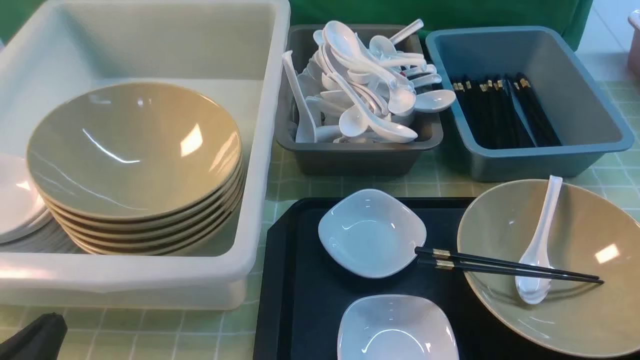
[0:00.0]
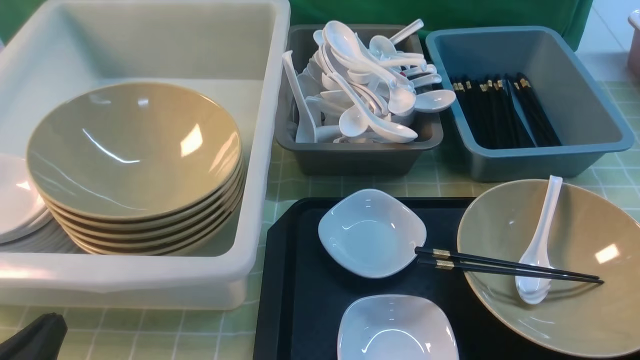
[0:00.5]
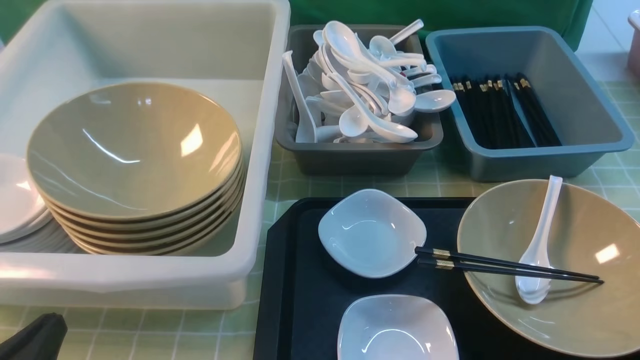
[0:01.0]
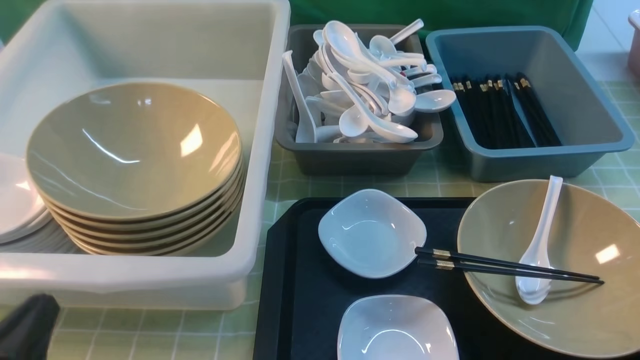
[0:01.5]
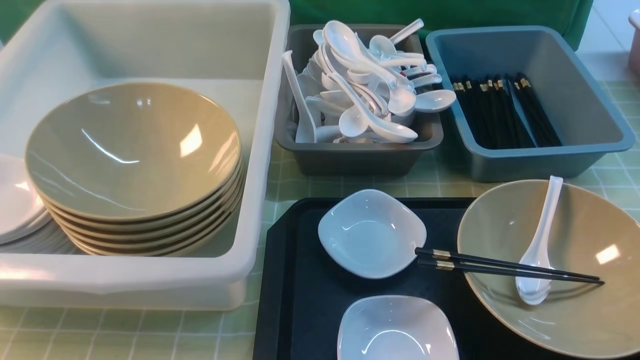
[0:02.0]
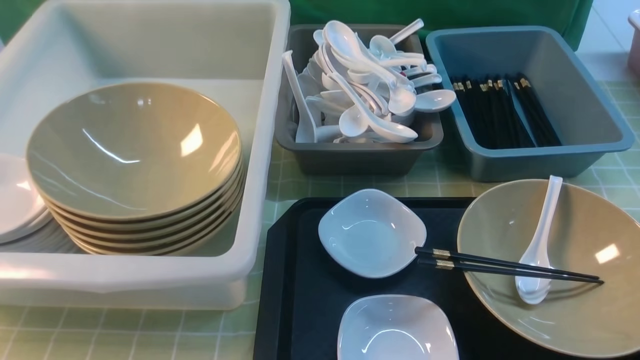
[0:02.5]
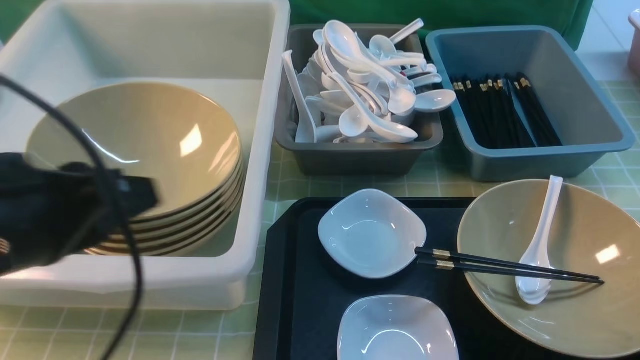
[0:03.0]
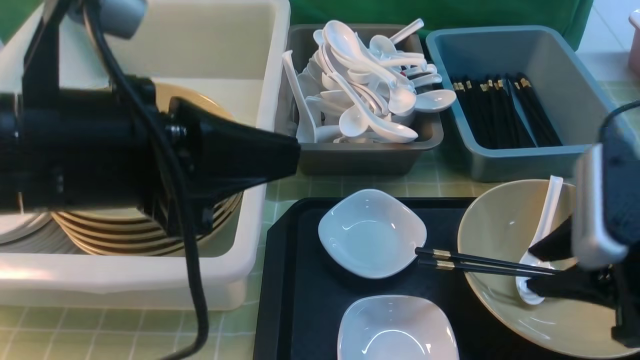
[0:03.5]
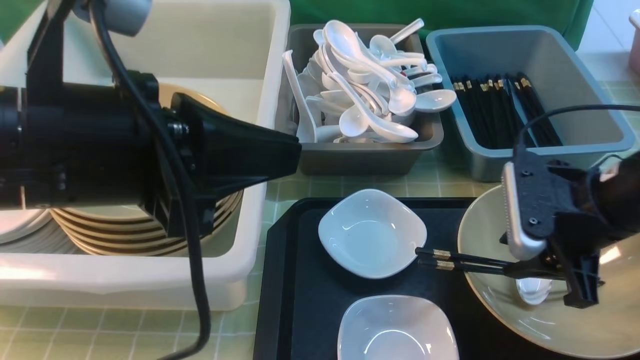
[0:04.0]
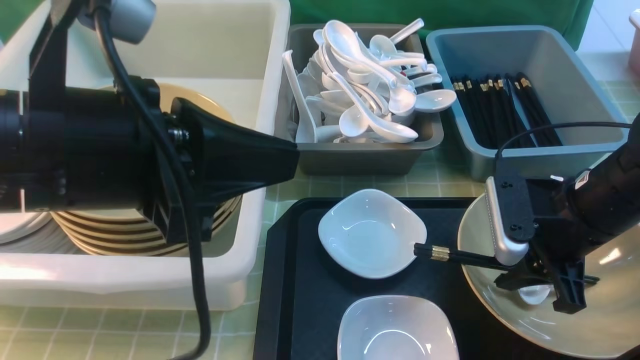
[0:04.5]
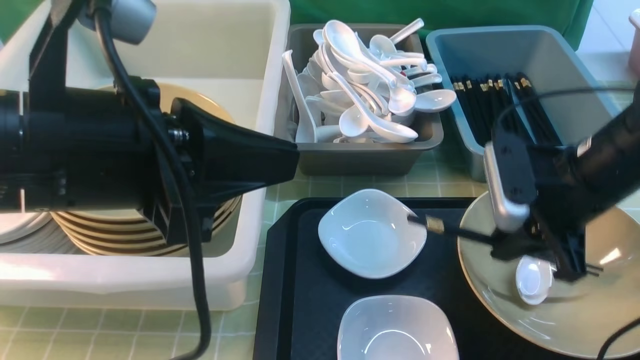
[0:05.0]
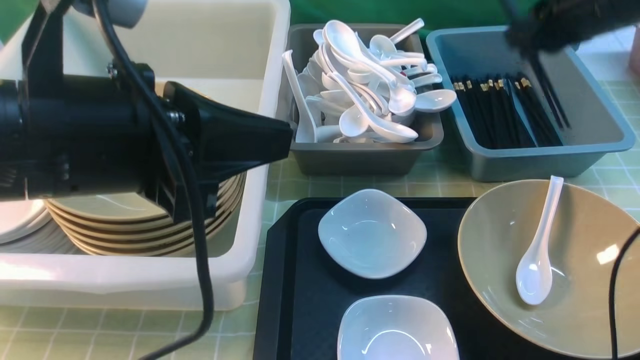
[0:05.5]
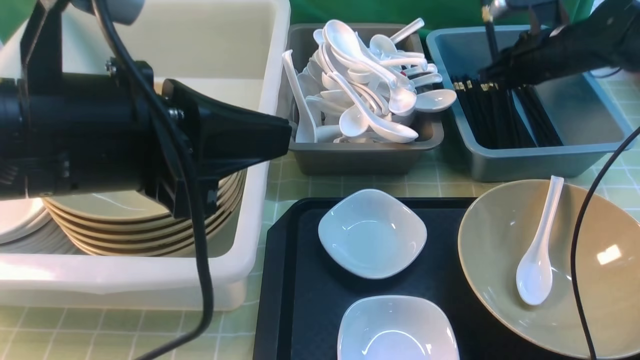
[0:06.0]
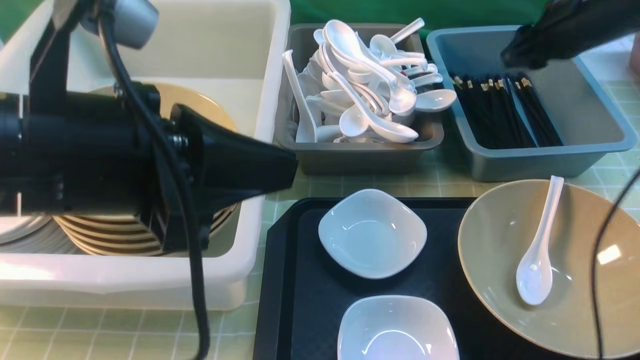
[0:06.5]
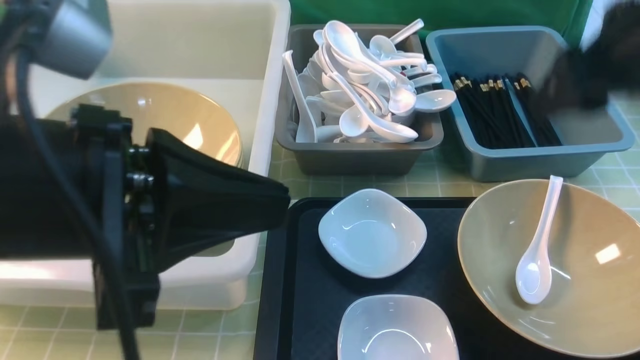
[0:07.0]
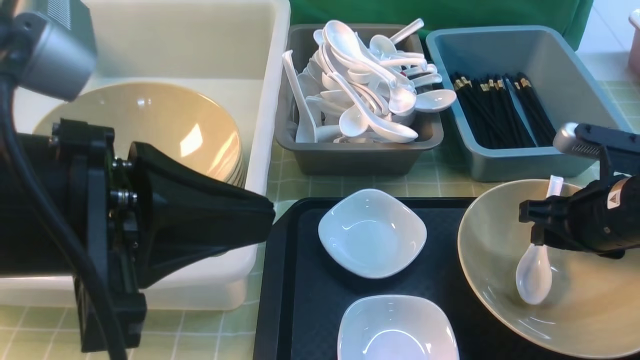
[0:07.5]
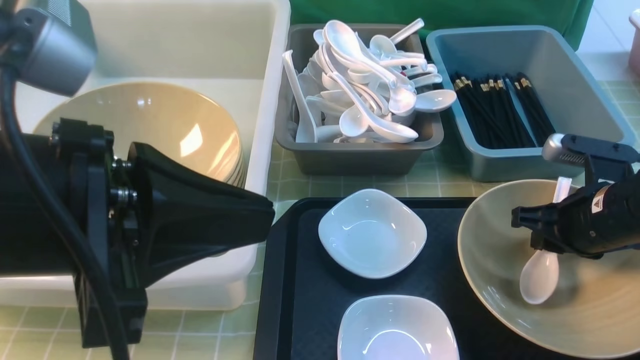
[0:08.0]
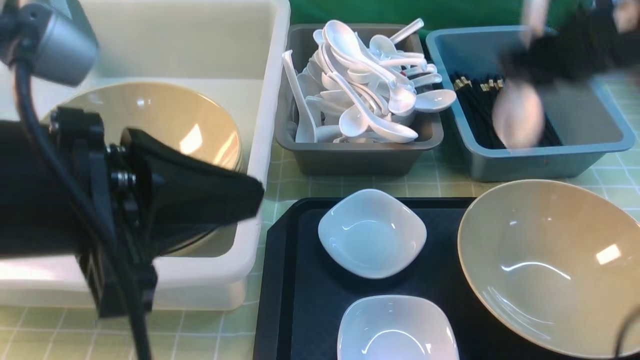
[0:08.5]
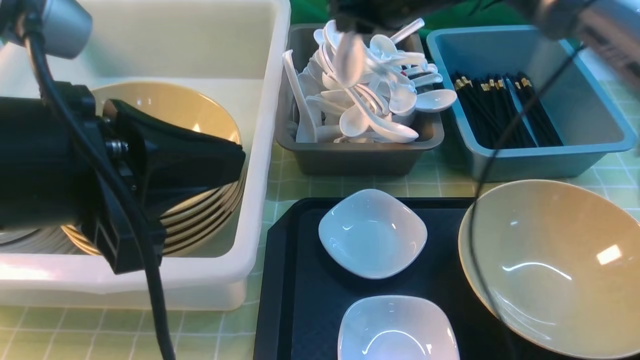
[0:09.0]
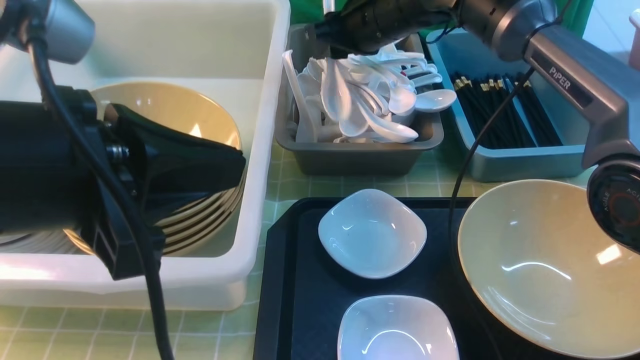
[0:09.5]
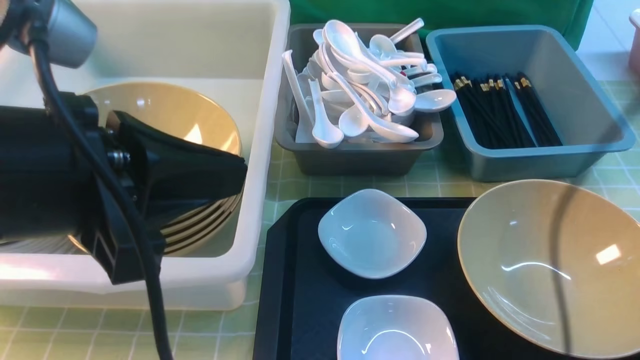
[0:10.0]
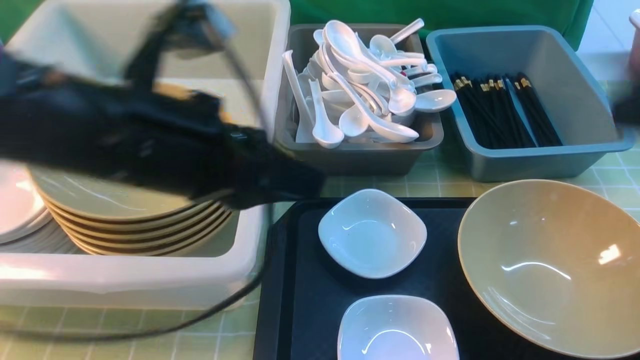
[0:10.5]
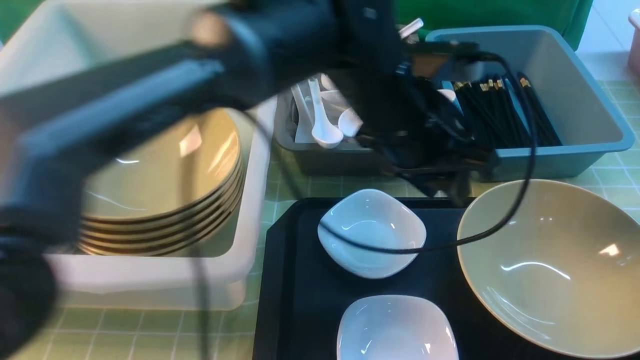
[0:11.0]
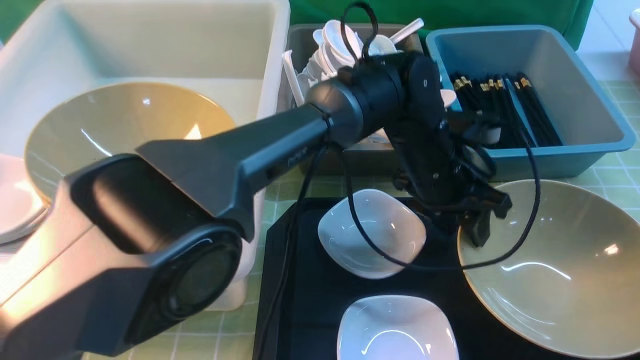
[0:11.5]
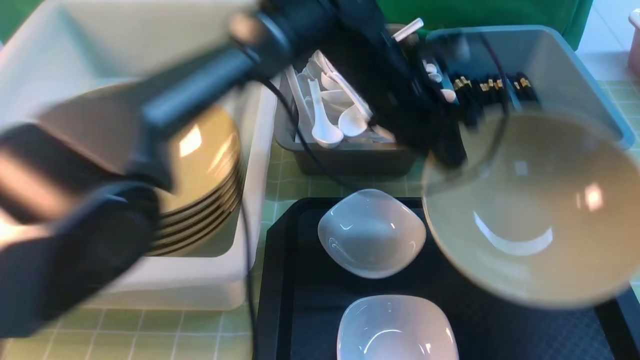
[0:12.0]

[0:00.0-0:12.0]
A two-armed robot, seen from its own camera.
Task of the whole recording: on green table put chopsticks spoon bowls plates into blue grey white boxes.
Step, 0:00.0 to 0:04.5: use the right arm to grab the chopsticks.
Step, 0:05.0 to 0:06.5: use the right arm to put the chopsticks into the small storage box on the right.
Step, 0:07.0 to 0:08.0: use the right arm to grab the soup spoon in the middle.
Step, 0:08.5 to 0:09.5: use the right arm to put the soup spoon into the small storage box in the middle.
Step, 0:10.0 to 0:12.0: use the left arm to grab the yellow noodle bowl on the left.
0:00.0 to 0:02.0: The left gripper travels upward by approximately 10 cm.
0:02.0 to 0:04.0: The right gripper goes approximately 25 cm forward; the left gripper moves forward, to the right and upward, some 20 cm.
0:04.0 to 0:06.0: The right gripper heads forward, covering some 25 cm, and closes.
0:06.0 to 0:08.0: The right gripper shifts about 20 cm backward, and opens, then closes once more.
0:08.0 to 0:10.0: The right gripper moves up and down over some 25 cm, changing direction 2 times, and opens its fingers.
0:10.0 to 0:12.0: The right gripper shifts roughly 30 cm backward, and closes. The left gripper travels forward and to the right by approximately 30 cm, and opens and closes again.

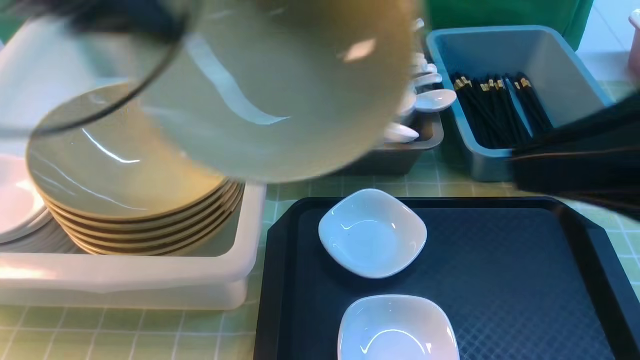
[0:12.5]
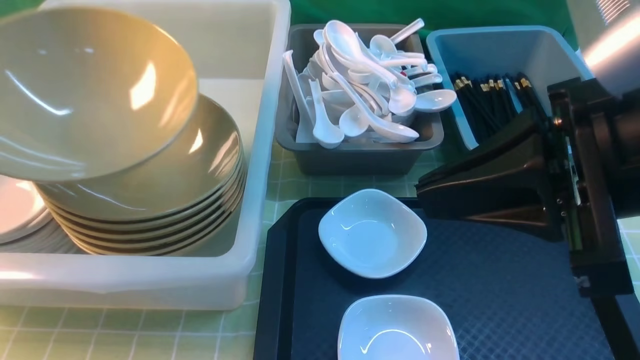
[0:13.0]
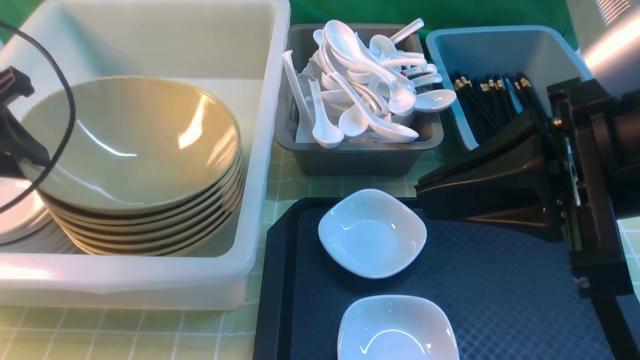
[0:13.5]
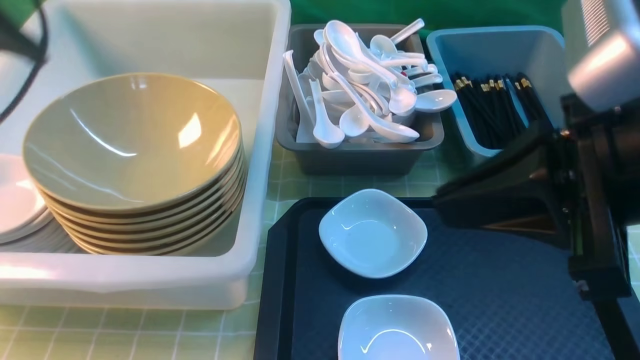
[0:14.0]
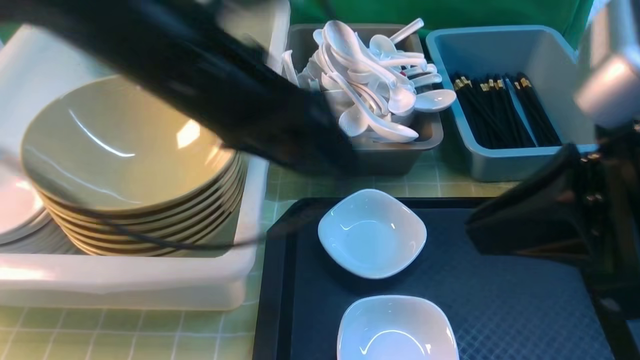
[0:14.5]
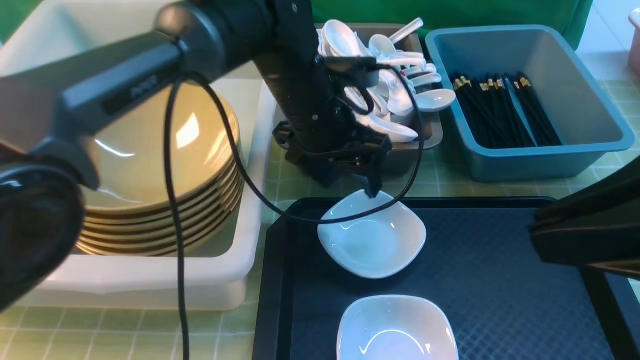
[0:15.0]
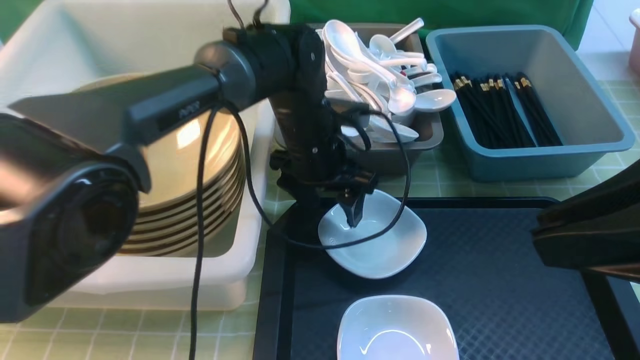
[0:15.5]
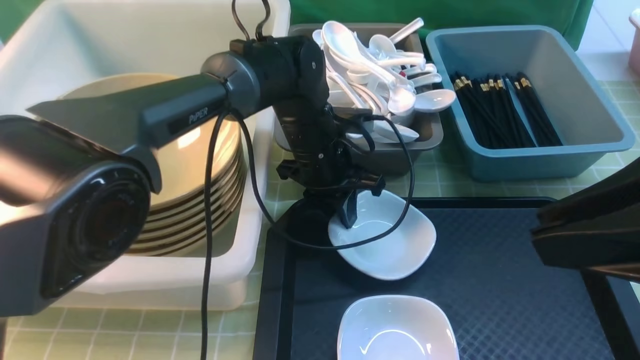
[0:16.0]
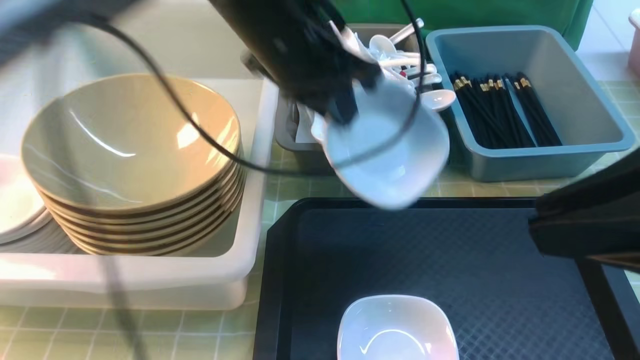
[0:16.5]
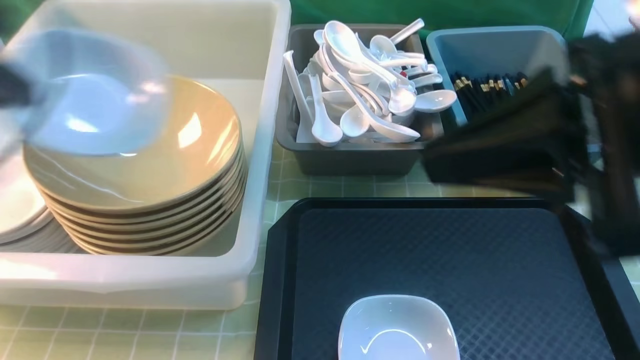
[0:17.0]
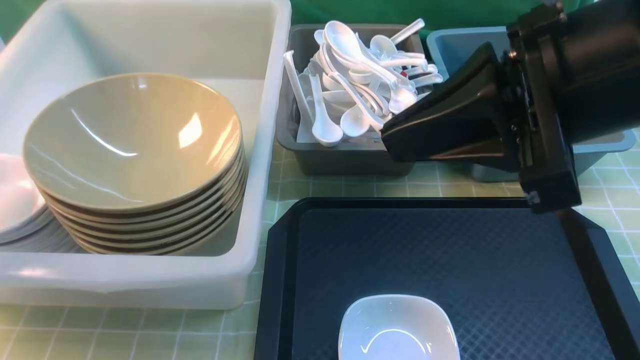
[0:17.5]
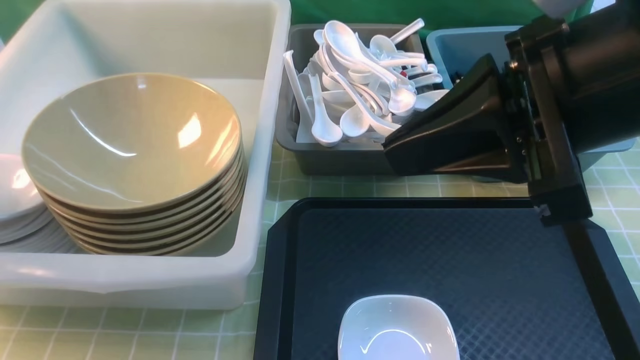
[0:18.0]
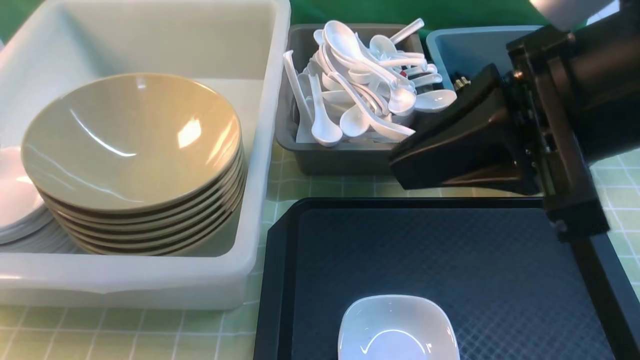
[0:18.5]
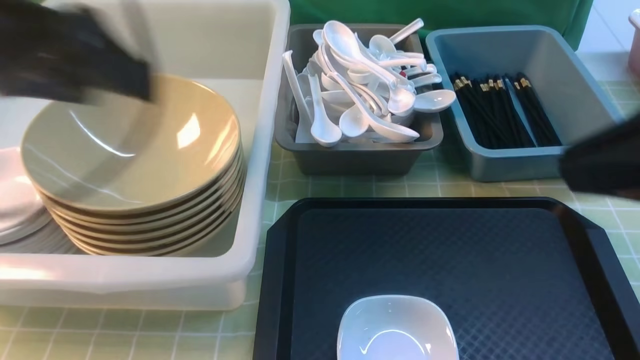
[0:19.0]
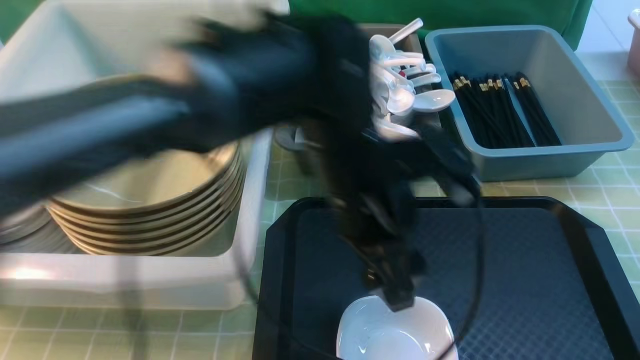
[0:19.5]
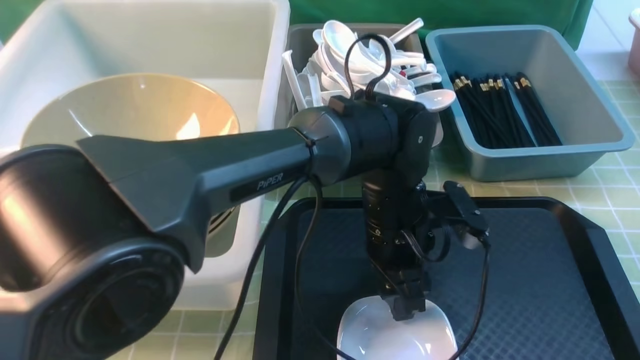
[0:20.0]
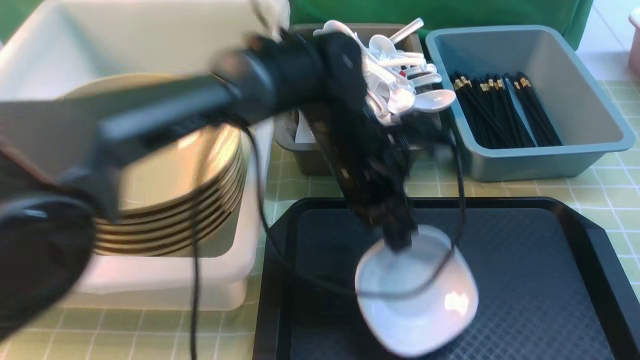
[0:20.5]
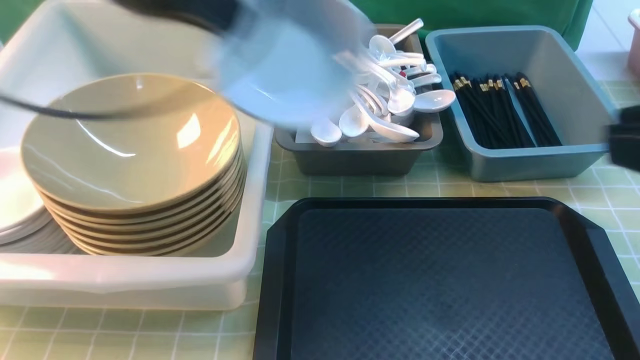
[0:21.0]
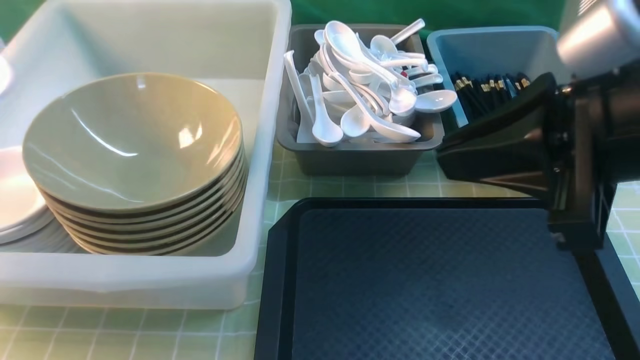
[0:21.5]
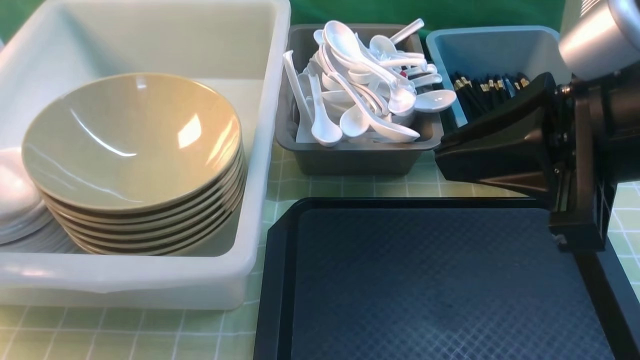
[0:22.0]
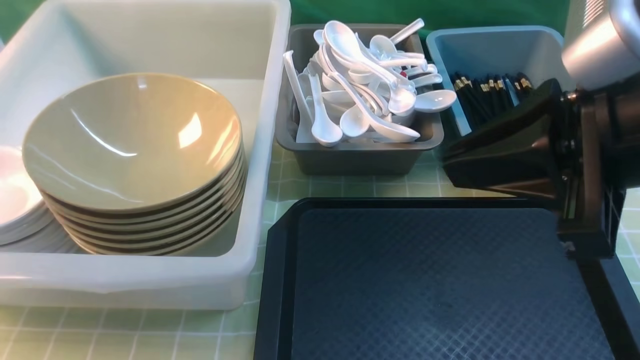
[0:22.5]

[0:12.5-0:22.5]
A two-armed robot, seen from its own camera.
Task of the whole recording: on green table put chopsticks spoon bowls plates into blue grey white boxes.
Step, 0:12.5 to 0:13.5: use the left arm to put the noodle bowl into the large storage box on the left.
Step, 0:14.0 to 0:16.0: use the left arm to grab the plate.
Step, 0:16.5 to 0:18.0: use the left arm to put the plate into the large storage box on the left.
Step, 0:18.5 to 0:20.5: use the left arm to grab the plate.
0:12.5 to 0:14.5: The left gripper goes roughly 15 cm to the right and downward, and opens its fingers.
0:14.5 to 0:16.5: The left gripper travels forward by approximately 5 cm, travels downward and back again, approximately 15 cm each way, and closes up.
0:16.5 to 0:18.5: The left gripper goes approximately 30 cm to the left, and opens its fingers. The right gripper shifts approximately 5 cm forward.
0:18.5 to 0:20.5: The right gripper travels backward and to the right by some 15 cm, while the left gripper goes roughly 40 cm to the right, and closes its fingers.
0:20.5 to 0:22.5: The left gripper travels to the left by roughly 35 cm, and opens its fingers. The right gripper travels forward and to the left by some 10 cm.
